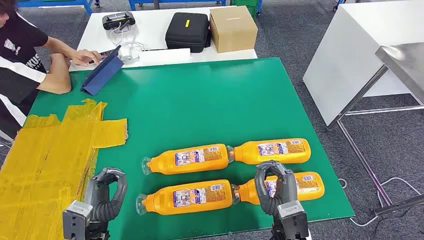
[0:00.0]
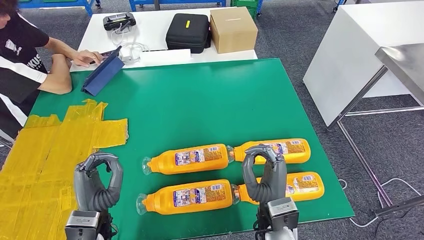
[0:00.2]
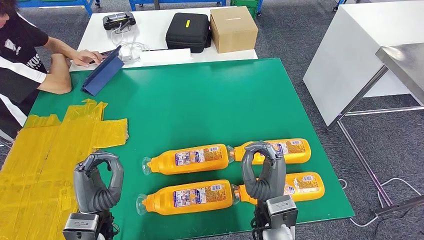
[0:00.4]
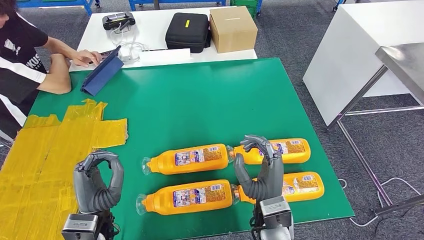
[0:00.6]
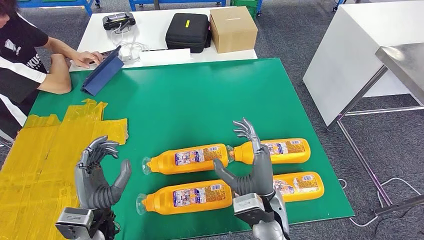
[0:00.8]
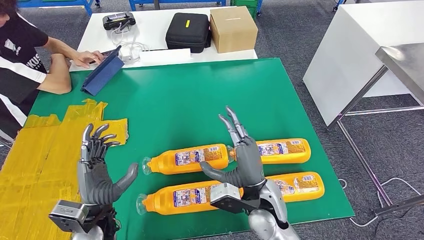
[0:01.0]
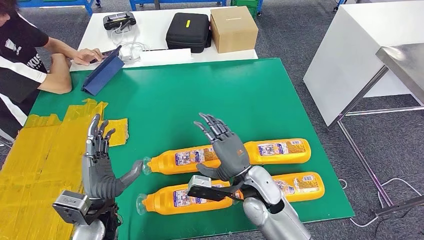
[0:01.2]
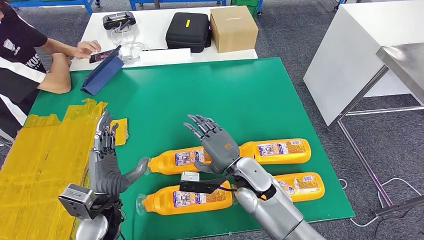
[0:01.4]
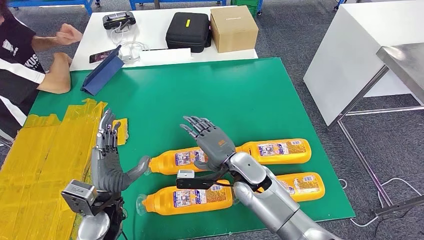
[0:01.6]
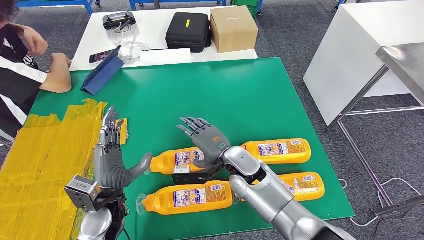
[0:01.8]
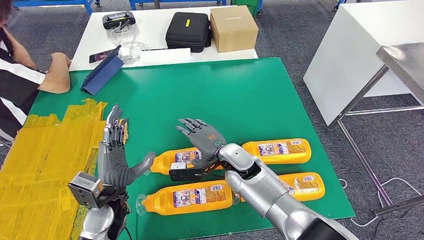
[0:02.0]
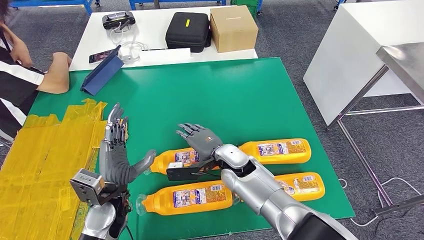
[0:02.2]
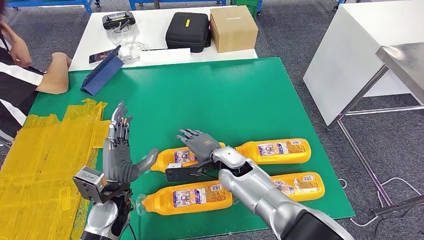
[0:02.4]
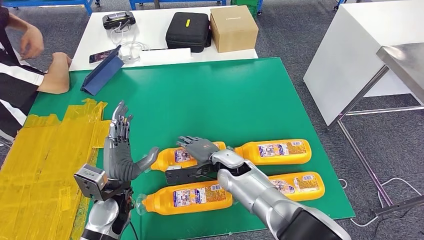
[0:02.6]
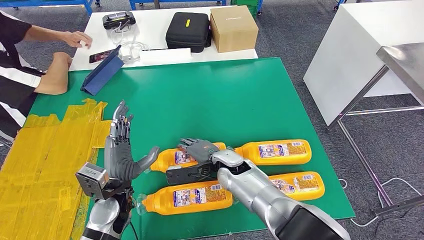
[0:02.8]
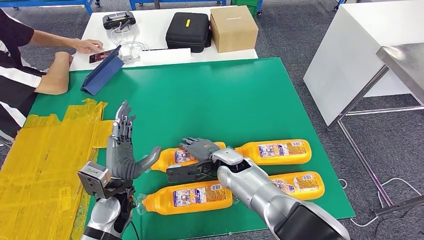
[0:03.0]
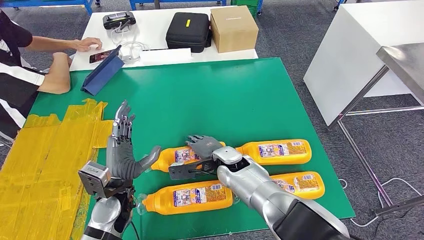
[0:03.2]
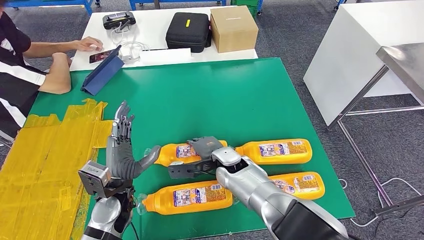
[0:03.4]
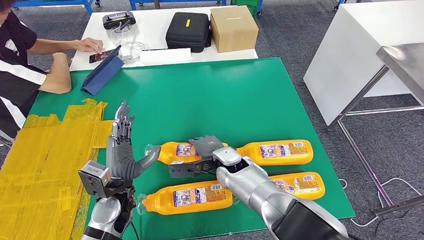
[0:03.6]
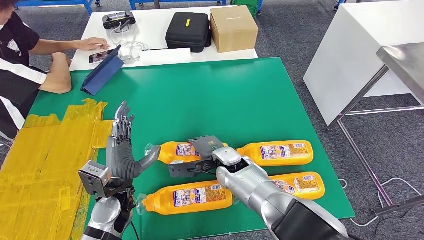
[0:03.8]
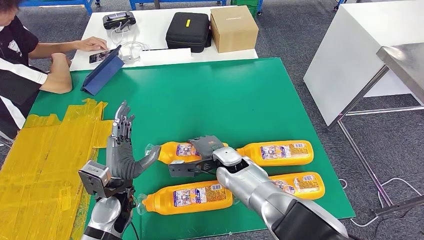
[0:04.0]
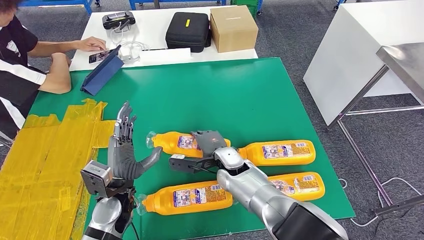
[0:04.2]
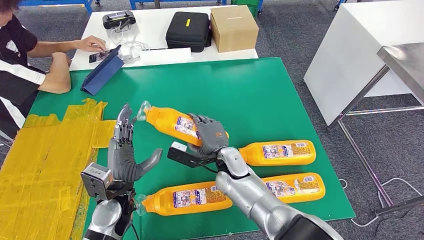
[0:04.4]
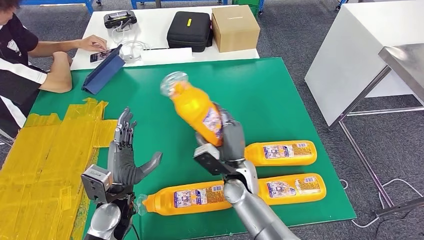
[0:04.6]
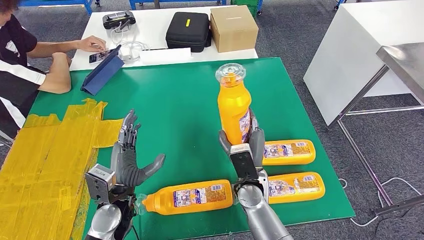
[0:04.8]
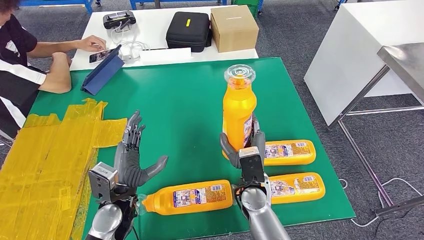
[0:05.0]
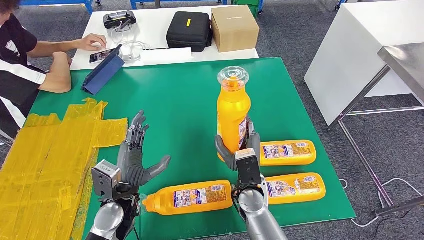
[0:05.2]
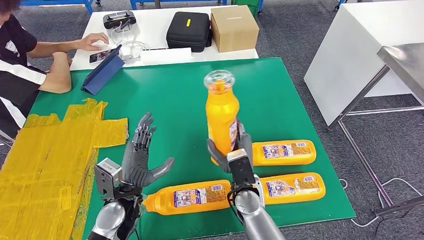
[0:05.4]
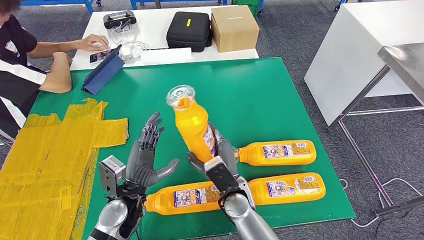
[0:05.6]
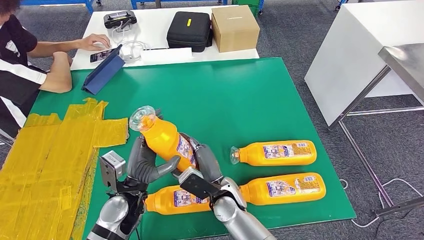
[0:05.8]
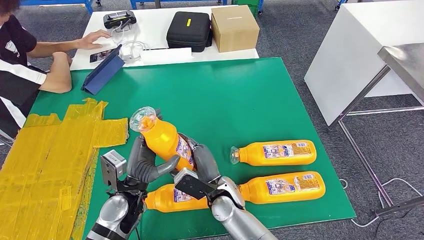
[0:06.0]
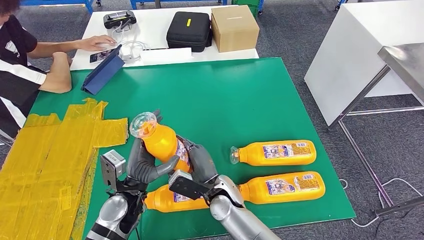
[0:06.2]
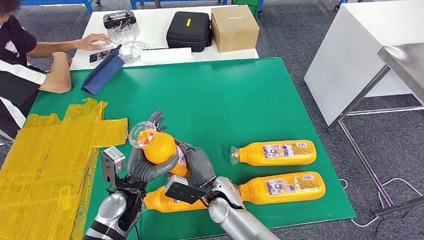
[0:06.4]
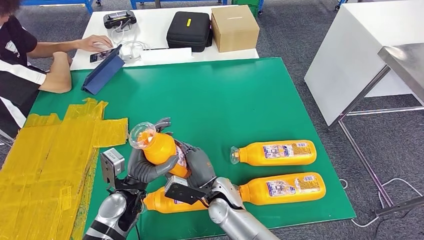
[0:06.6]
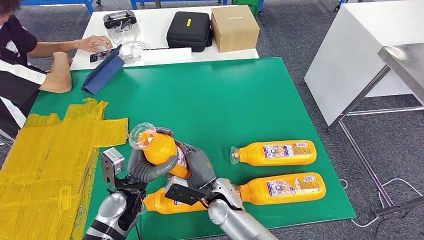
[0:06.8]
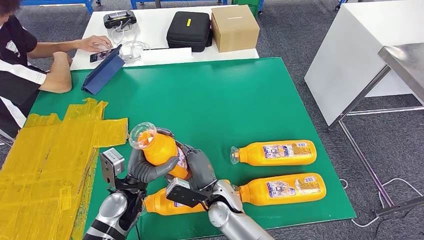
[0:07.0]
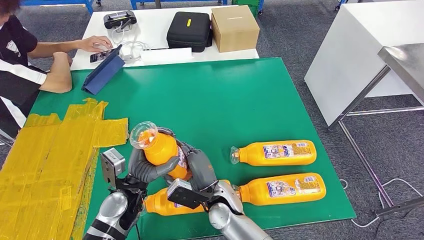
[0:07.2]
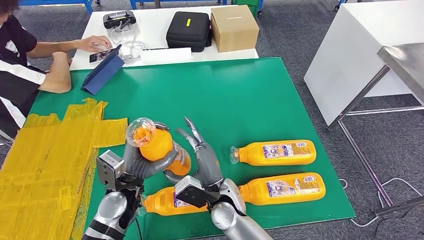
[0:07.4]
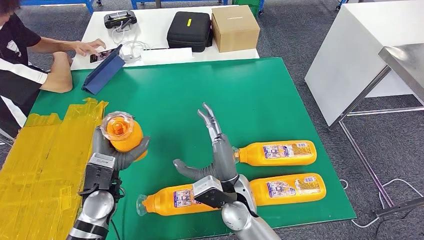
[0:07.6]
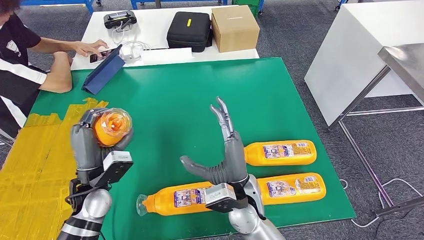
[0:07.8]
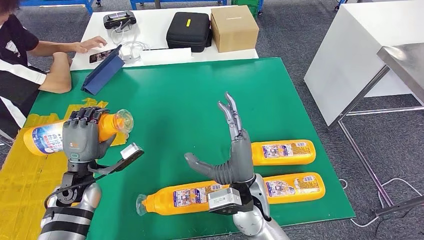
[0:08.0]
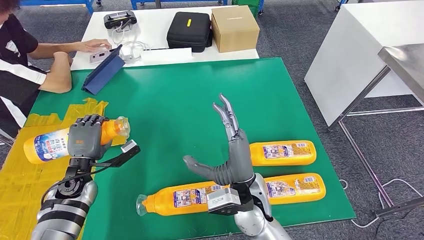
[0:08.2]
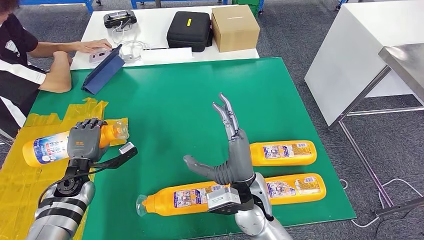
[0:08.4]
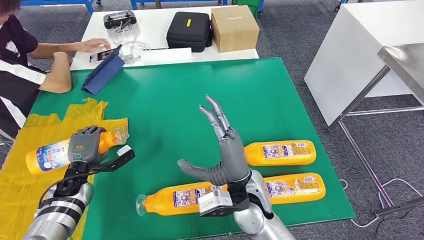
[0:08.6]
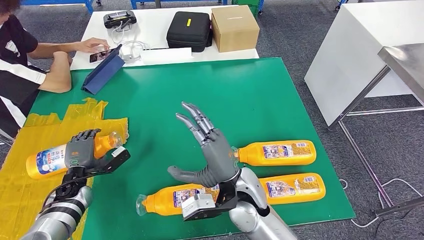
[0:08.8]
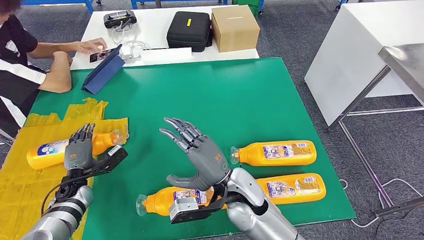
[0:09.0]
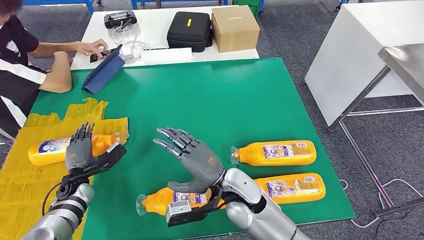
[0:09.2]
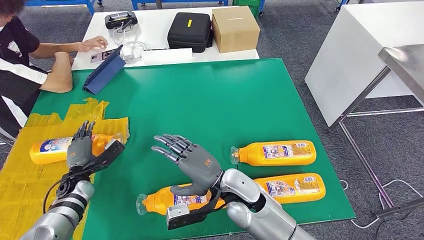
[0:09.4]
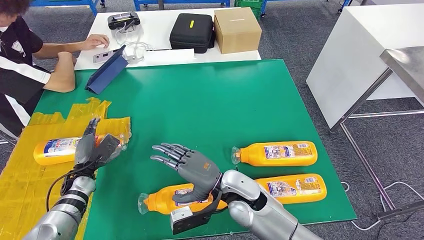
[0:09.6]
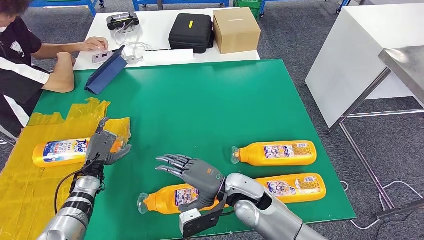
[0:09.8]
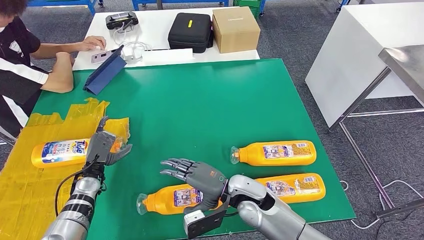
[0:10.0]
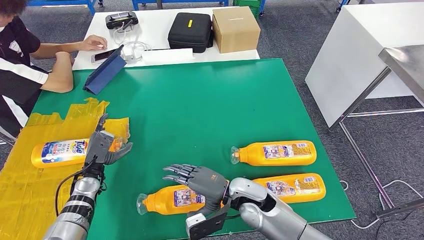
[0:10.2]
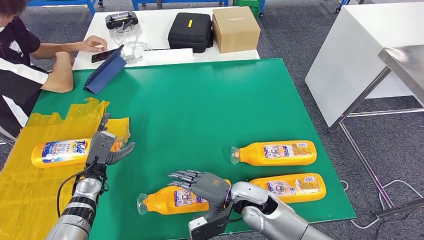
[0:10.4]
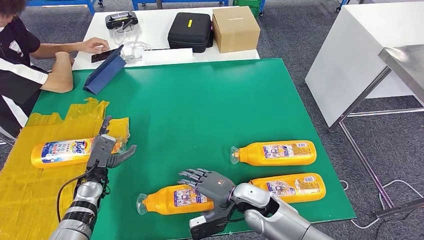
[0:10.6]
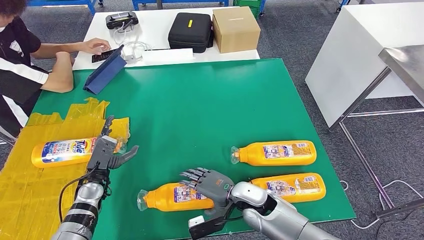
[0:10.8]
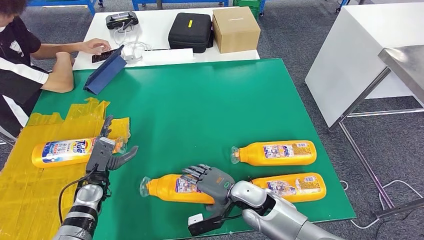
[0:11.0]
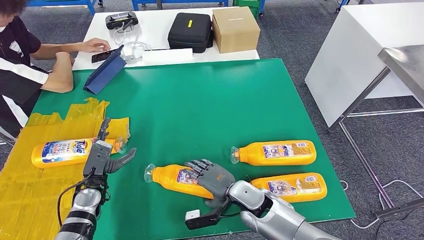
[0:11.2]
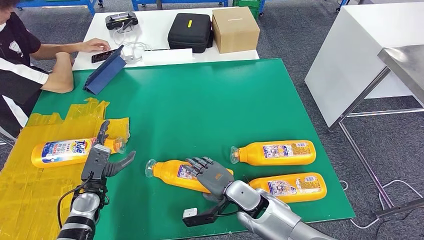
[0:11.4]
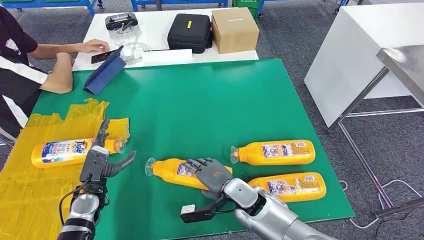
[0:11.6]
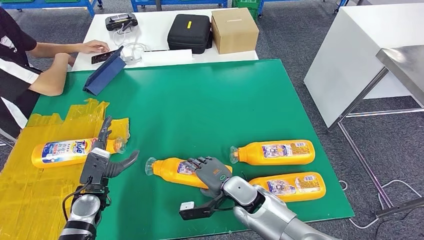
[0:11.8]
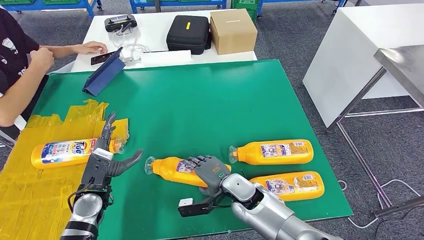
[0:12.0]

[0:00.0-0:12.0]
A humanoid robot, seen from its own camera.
Step, 0:00.0 to 0:06.6: Take the fast-moving consumer goods bottle from the table.
Step, 0:06.8 to 0:11.0: Flip the fast-moving consumer goods bottle to the front side.
0:01.6 to 0:03.0: The right hand is displaced forward by some 5 cm.
0:04.4 to 0:06.0: The right hand heads backward, covering about 10 cm.
0:06.0 to 0:07.6: The right hand is displaced upward by some 5 cm. The left hand goes approximately 5 cm to the left.
0:07.6 to 0:09.0: The left hand heads to the left and downward, covering about 20 cm.
0:09.0 to 0:10.4: The right hand travels downward by some 10 cm; the left hand is displaced to the right by about 5 cm.

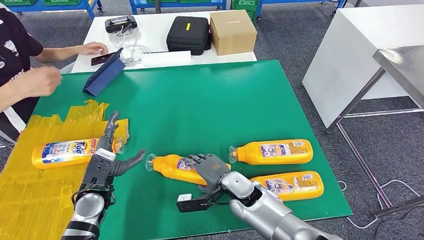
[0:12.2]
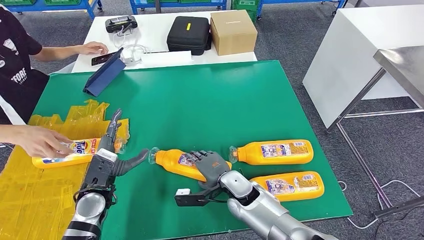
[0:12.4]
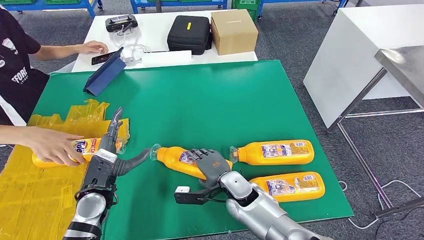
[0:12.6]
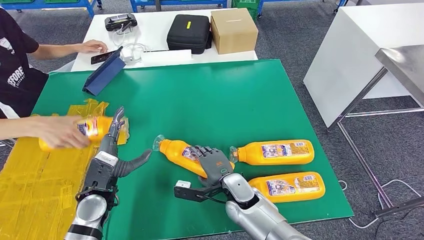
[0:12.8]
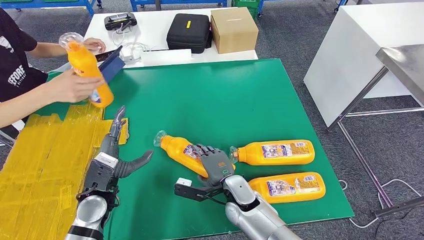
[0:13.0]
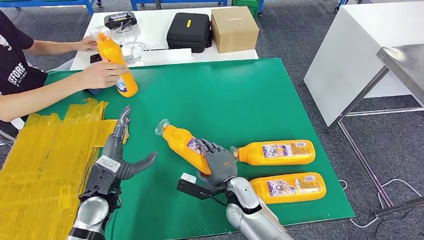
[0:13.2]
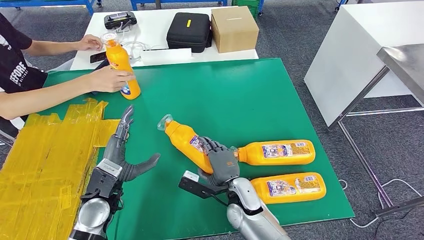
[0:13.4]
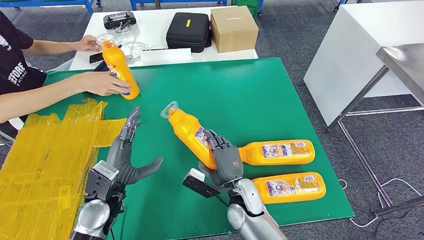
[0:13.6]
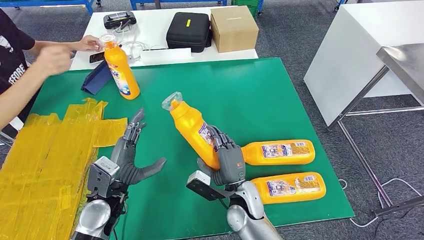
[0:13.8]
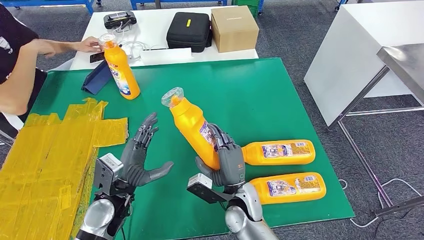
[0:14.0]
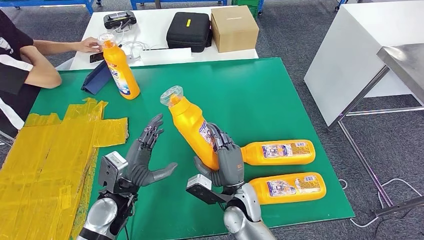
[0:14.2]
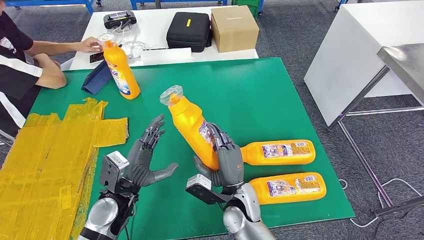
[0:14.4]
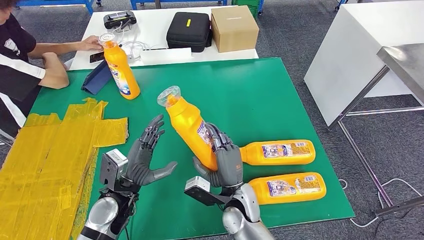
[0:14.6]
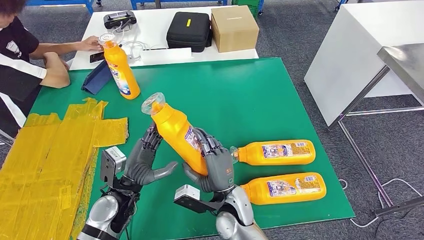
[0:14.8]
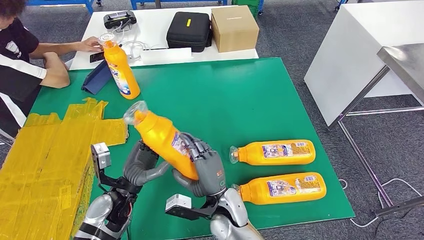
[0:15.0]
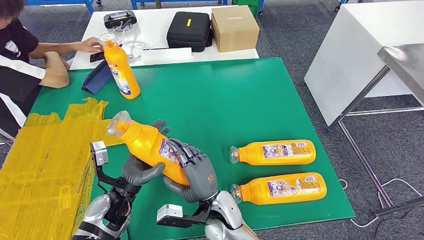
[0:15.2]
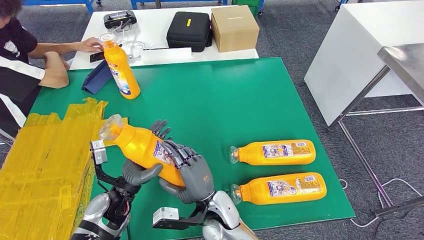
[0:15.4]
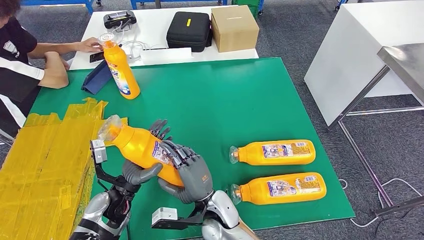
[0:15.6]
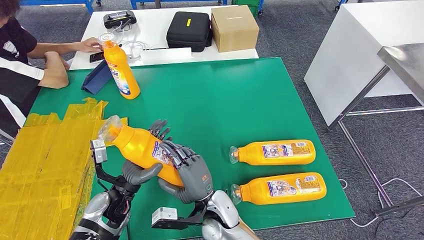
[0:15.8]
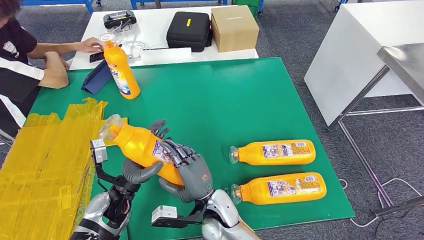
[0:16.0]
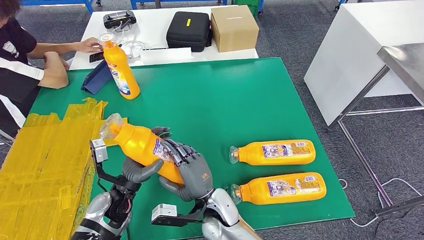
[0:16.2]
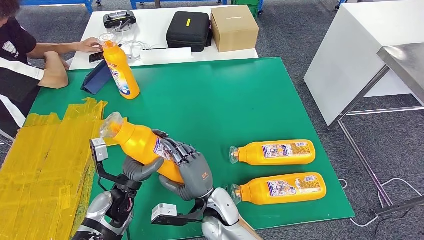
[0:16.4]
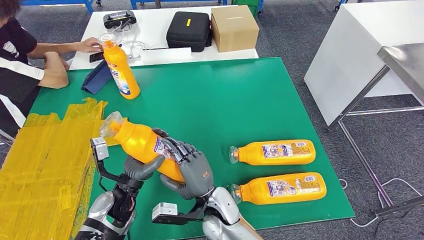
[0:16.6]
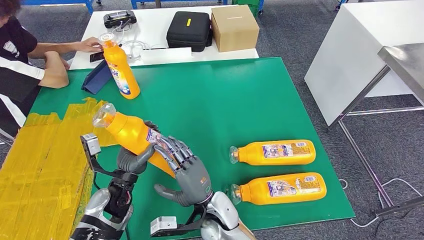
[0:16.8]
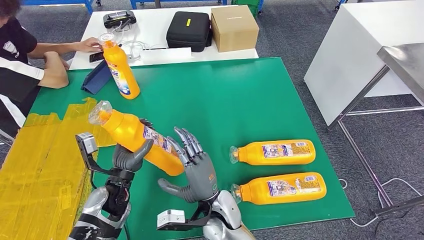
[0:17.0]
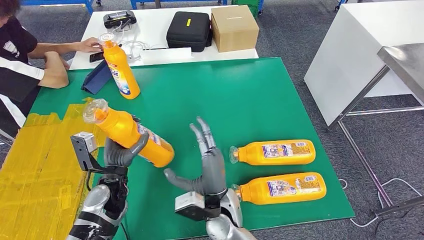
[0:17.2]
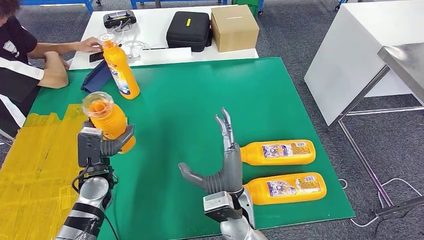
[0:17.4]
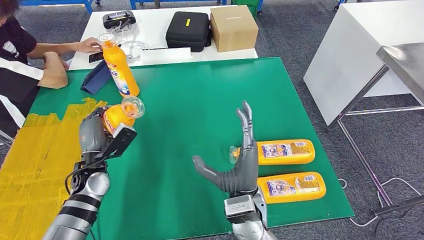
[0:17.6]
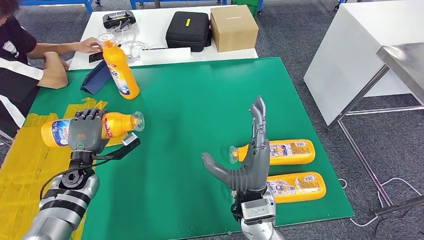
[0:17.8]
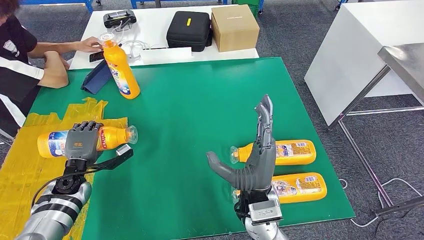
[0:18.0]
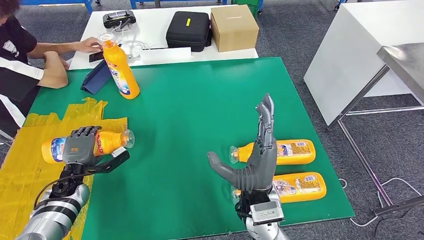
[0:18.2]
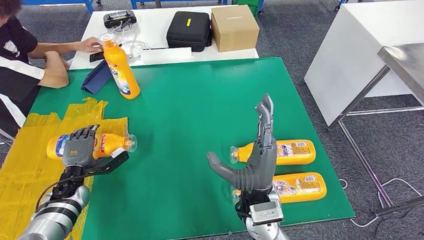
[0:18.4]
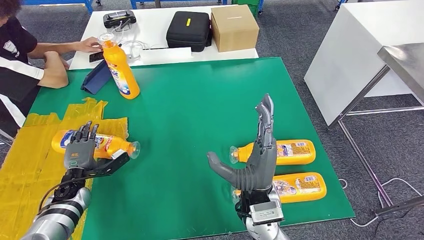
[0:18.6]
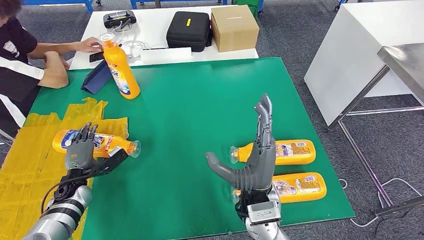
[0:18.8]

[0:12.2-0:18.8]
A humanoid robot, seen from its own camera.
Step, 0:12.2 to 0:15.2: Pick up the fast-moving consumer goods bottle from the table.
0:13.8 to 0:15.4: The right hand heads to the left, covering about 5 cm.
0:17.2 to 0:18.8: The right hand goes about 10 cm upward and to the right. The left hand heads to the left and downward, covering approximately 15 cm.
